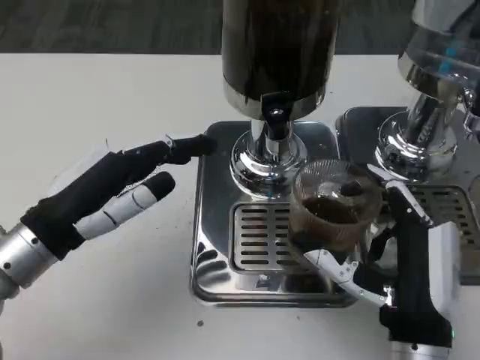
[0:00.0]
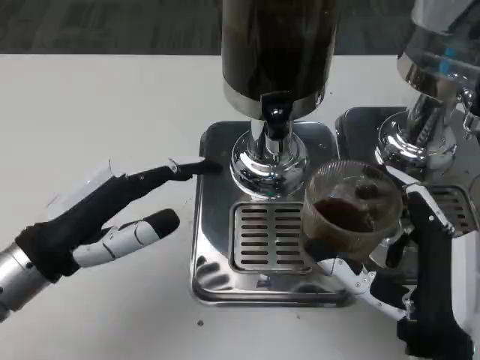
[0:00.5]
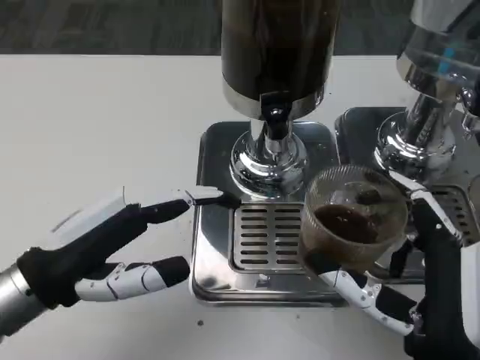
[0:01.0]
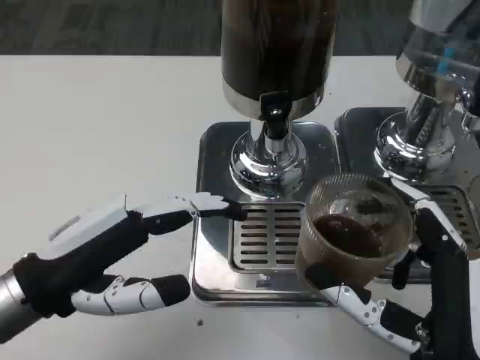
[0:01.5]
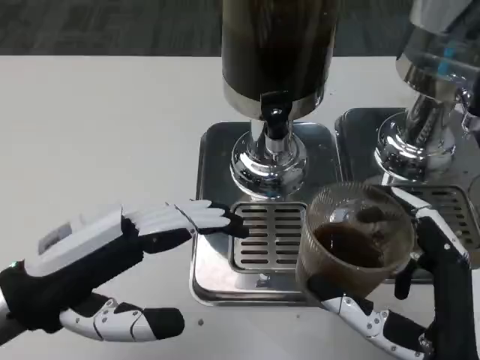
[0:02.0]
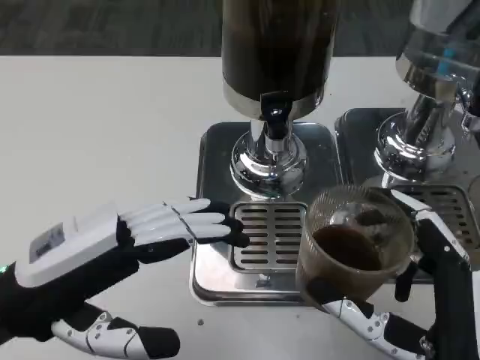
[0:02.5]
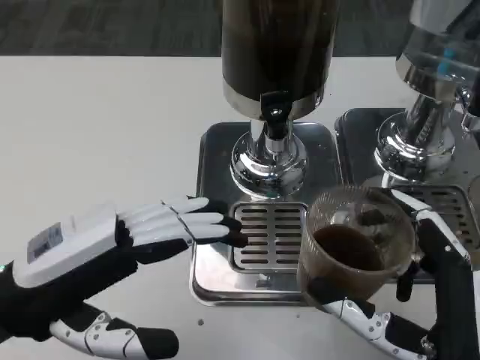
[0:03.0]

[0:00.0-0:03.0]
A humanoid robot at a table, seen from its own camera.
Task of the whole recording: Grasp the cup under the faucet to collect the drink, then remove the cup.
0:00.0 to 0:01.5: The right hand shifts by about 5 cm.
0:01.5 to 0:03.0: The hands make only small movements.

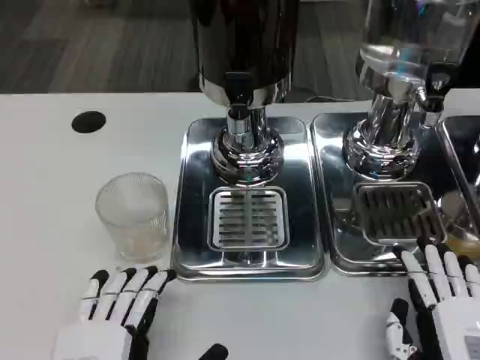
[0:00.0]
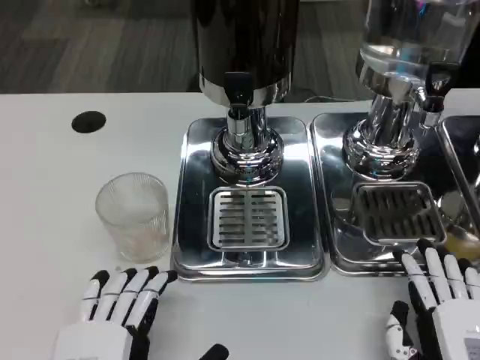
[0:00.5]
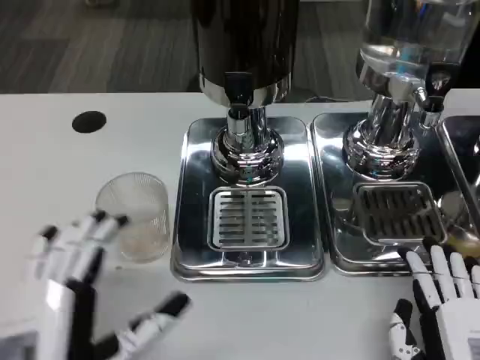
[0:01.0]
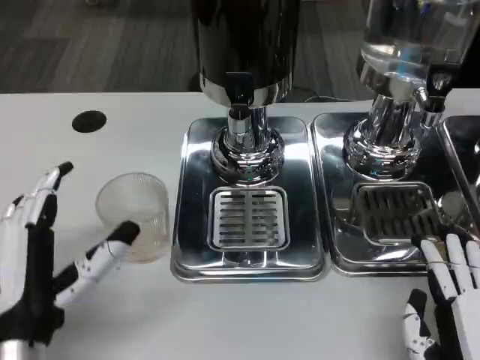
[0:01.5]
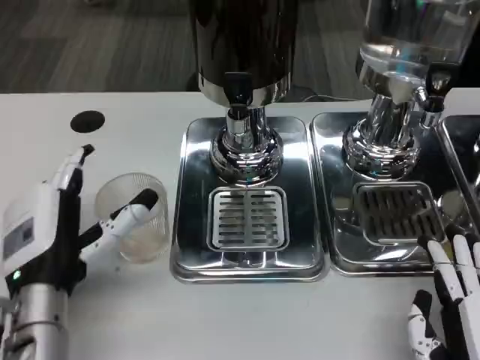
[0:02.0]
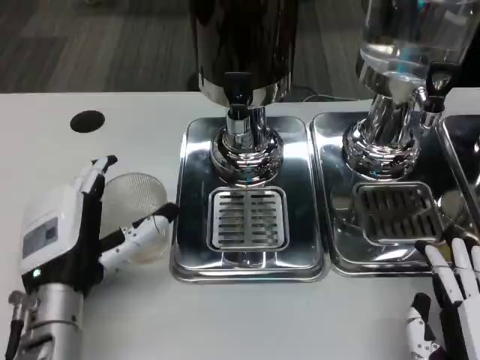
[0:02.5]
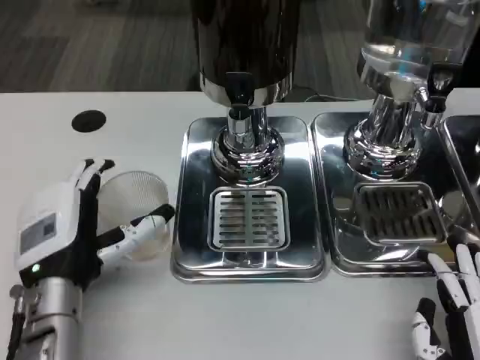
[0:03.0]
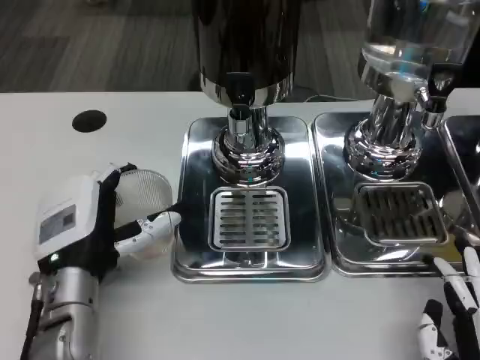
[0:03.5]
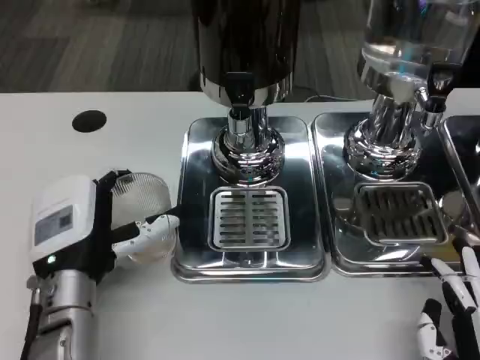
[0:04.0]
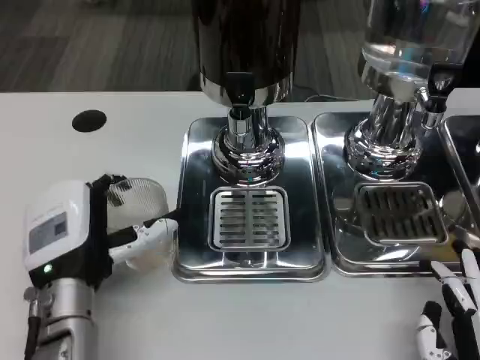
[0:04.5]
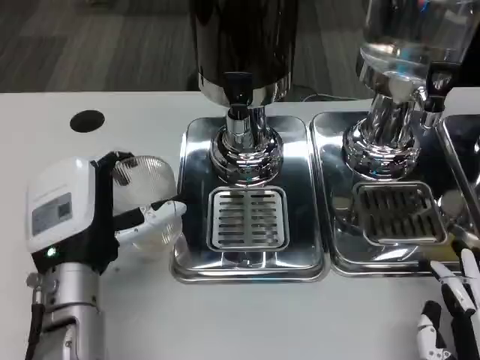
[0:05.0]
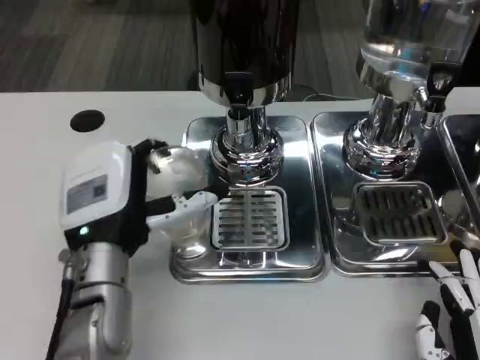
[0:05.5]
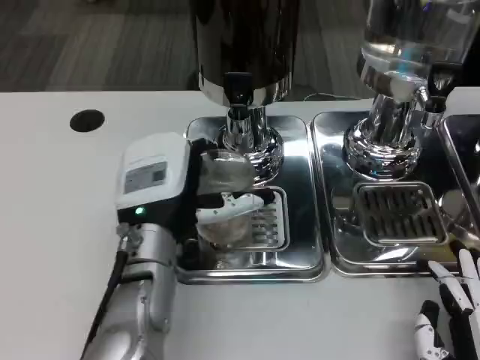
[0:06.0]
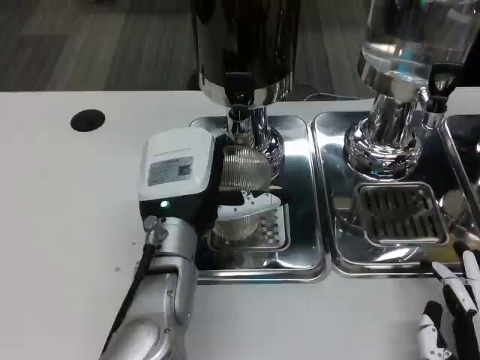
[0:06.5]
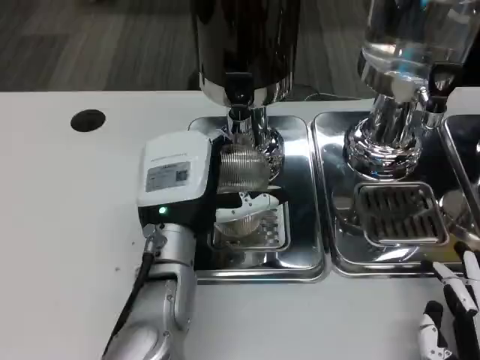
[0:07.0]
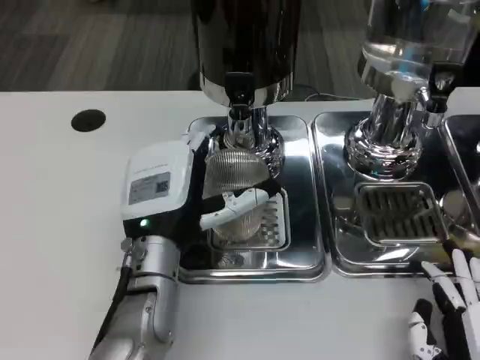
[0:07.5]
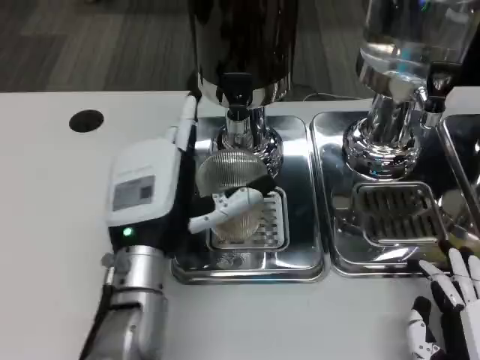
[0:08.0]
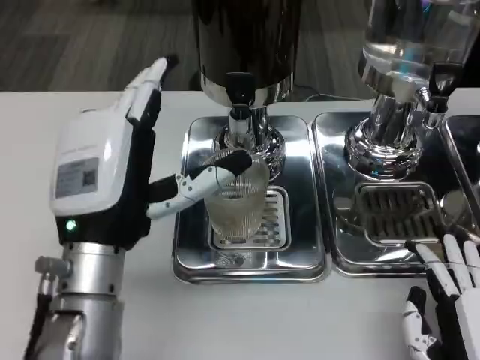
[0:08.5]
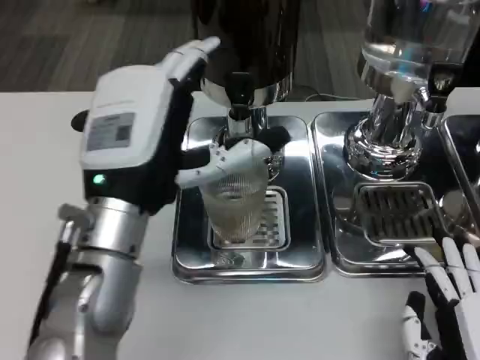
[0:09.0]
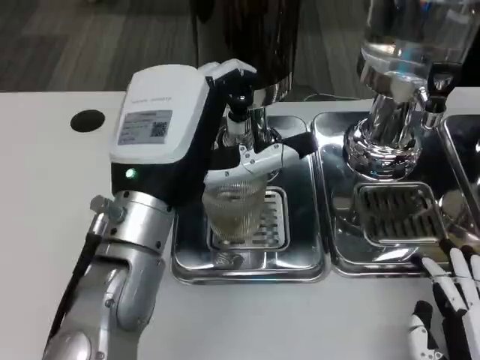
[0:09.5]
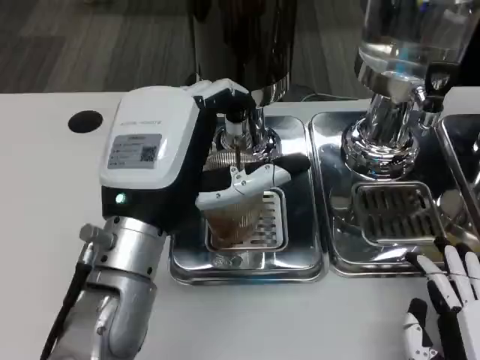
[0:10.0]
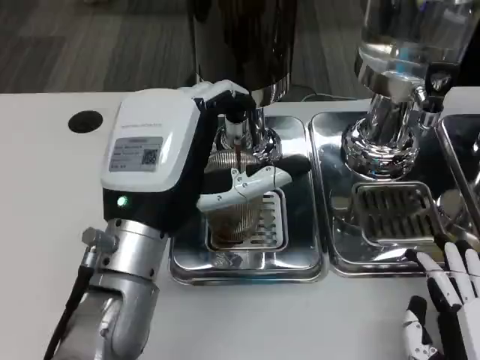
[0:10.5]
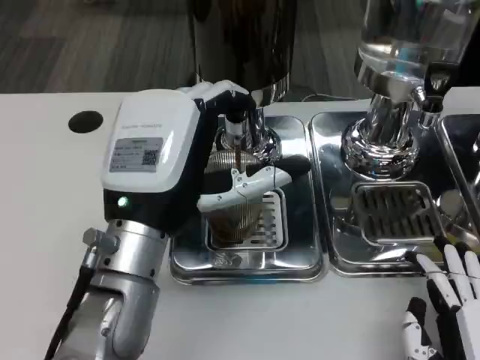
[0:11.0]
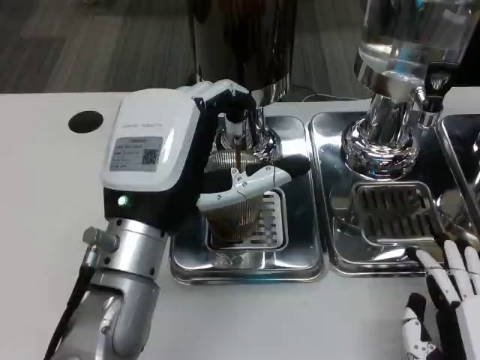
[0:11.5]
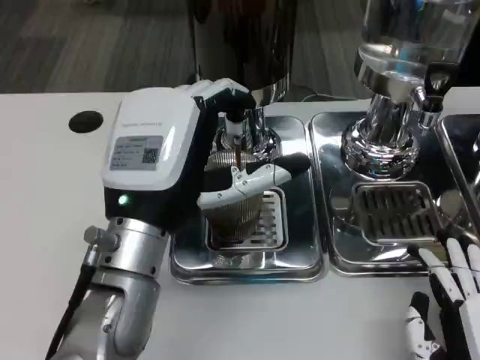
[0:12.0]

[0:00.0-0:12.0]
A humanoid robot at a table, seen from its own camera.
Task of the whole recording: Grasp the cup under the faucet to collect the drink, then remove the cup.
0:00.0 to 0:02.0: The left hand is displaced forward by approximately 15 cm.
0:04.0 to 0:06.0: The left hand shifts approximately 5 cm to the right.
0:06.0 to 0:08.0: The hands make only small movements.
0:08.0 to 0:10.0: The left hand heads upward, covering about 5 cm.
0:10.0 to 0:12.0: Neither hand changes place.

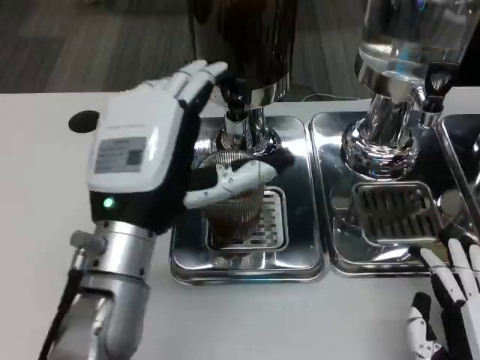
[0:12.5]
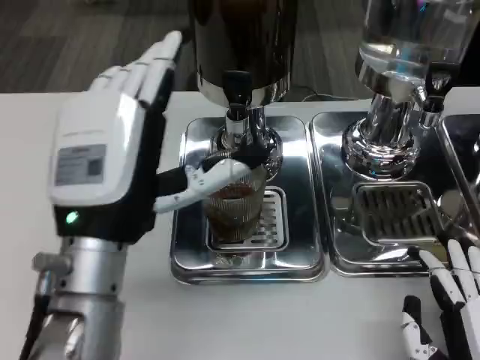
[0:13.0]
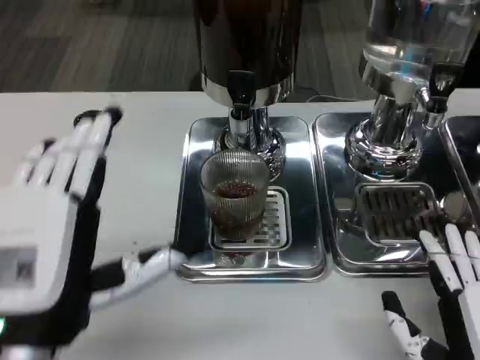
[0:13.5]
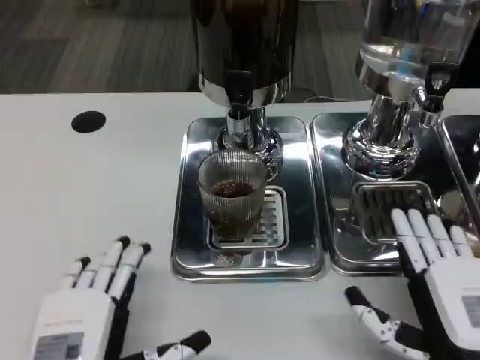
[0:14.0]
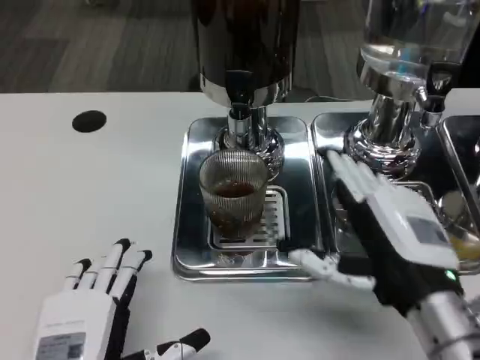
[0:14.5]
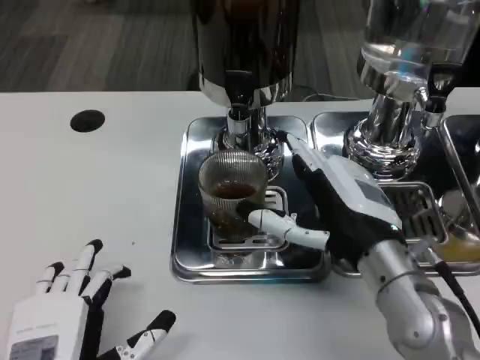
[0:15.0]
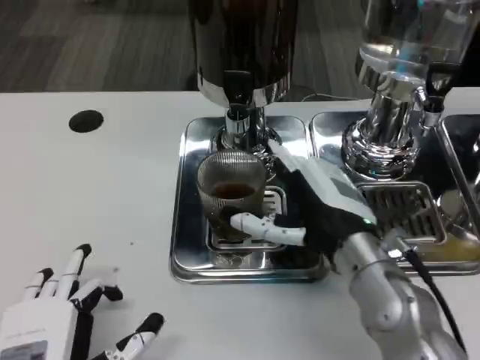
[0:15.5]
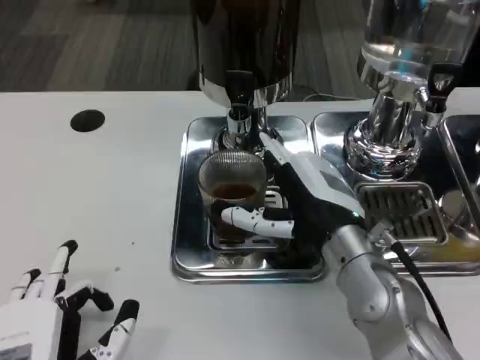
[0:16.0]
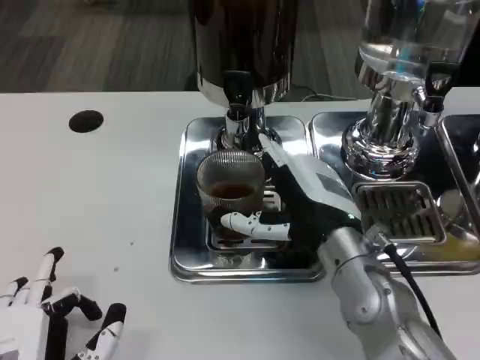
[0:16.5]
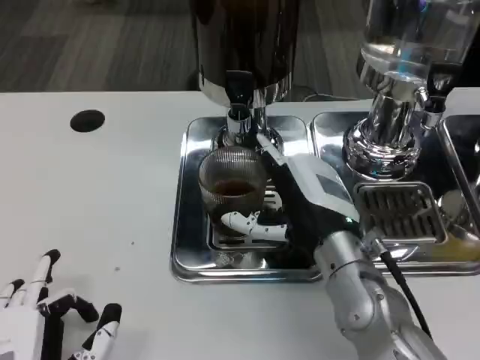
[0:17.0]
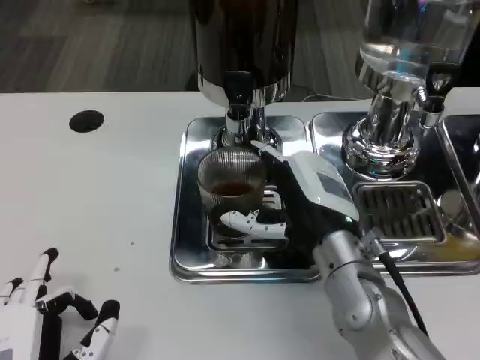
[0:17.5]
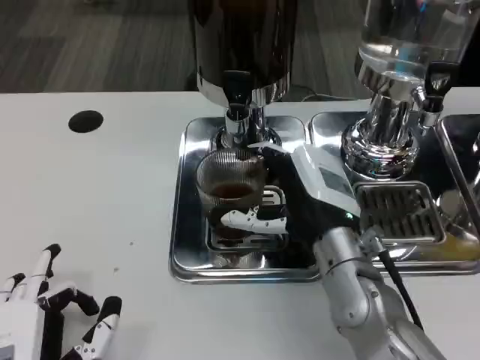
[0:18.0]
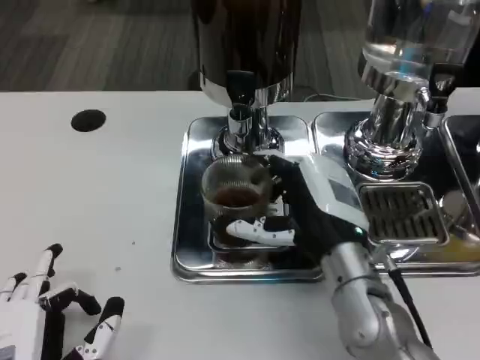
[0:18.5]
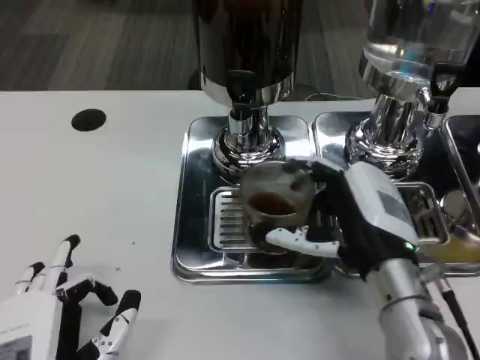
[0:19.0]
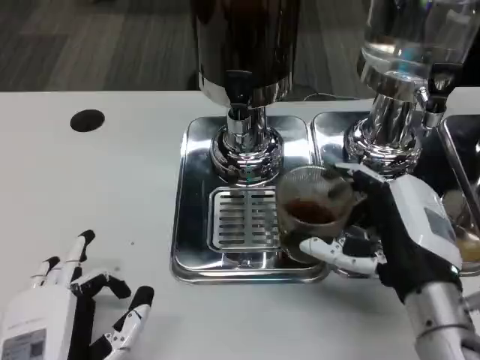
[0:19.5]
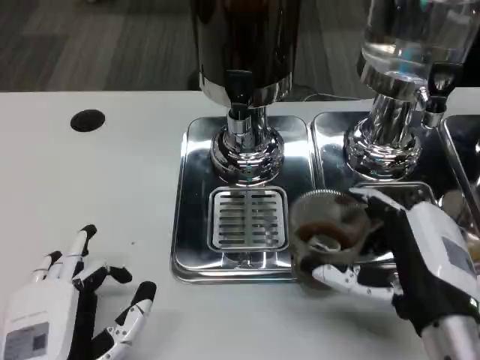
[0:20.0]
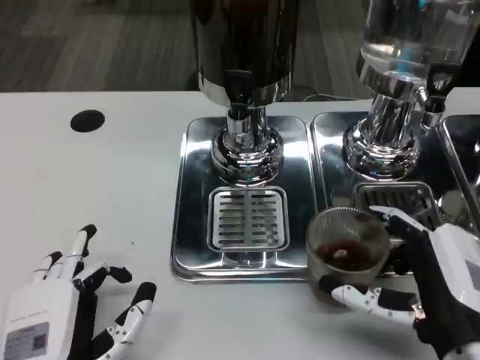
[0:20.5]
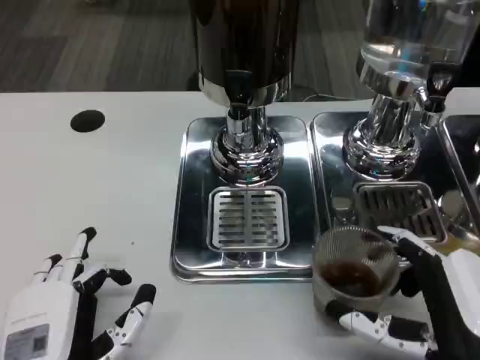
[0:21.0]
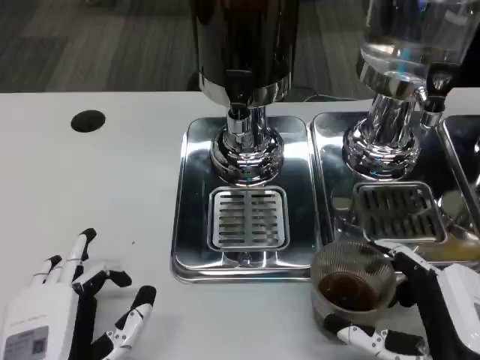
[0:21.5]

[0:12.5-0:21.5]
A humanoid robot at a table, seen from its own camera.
Task of the whole recording: Grasp the cup under the faucet to collect the drink, then remove the cup.
0:12.5 to 0:14.5: The left hand goes roughly 15 cm downward, backward and to the left. Meanwhile the right hand shifts approximately 10 cm upward and forward.
0:14.5 to 0:17.0: The right hand is displaced forward and to the left by some 10 cm.
0:17.0 to 0:19.5: The right hand is displaced backward and to the right by some 10 cm.
0:19.5 to 0:21.5: The right hand goes roughly 10 cm backward.

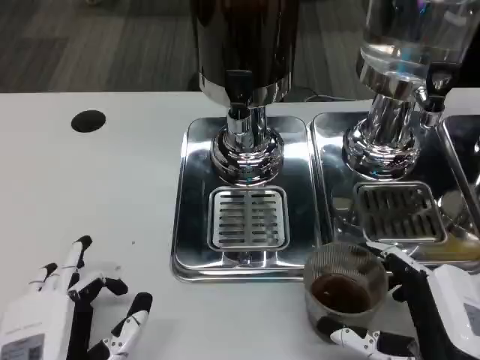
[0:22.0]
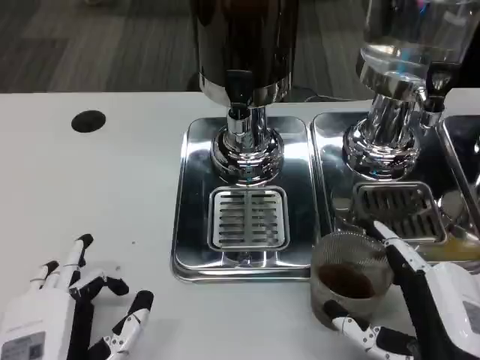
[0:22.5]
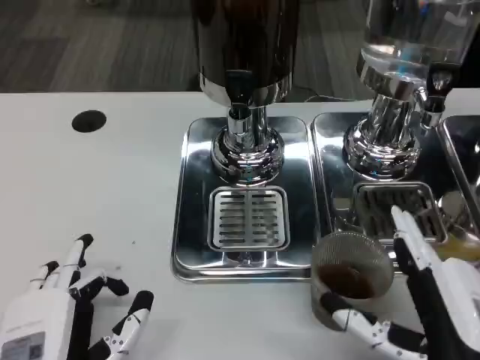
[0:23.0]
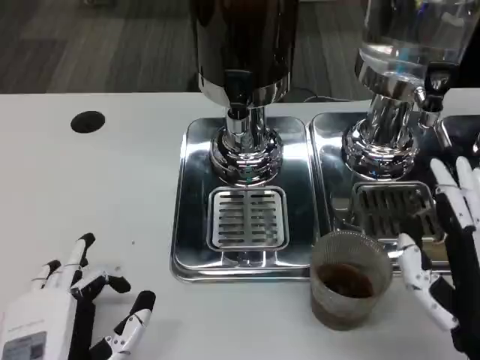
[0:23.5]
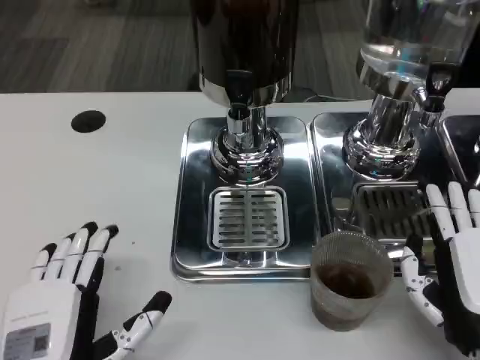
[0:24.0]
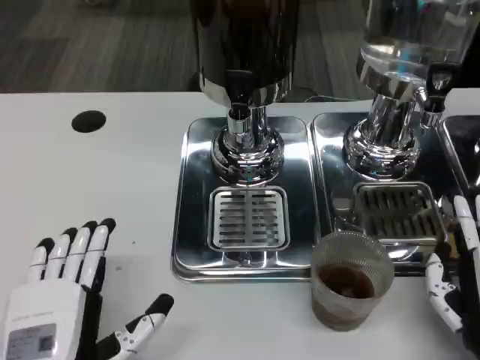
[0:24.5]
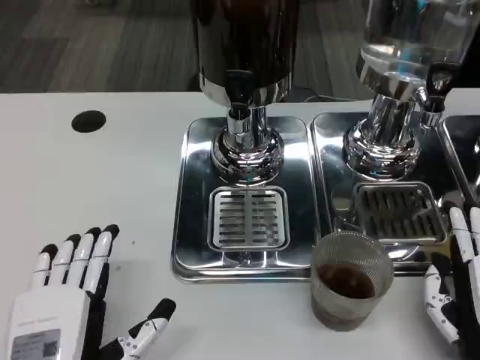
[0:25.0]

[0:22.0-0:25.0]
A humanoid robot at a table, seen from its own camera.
Task of the whole recording: Grasp the cup under the faucet to collect the drink, then remove the cup.
0:22.0 to 0:23.5: The hands make only small movements.
0:23.5 to 0:25.0: The right hand is displaced downward by roughly 10 cm.
